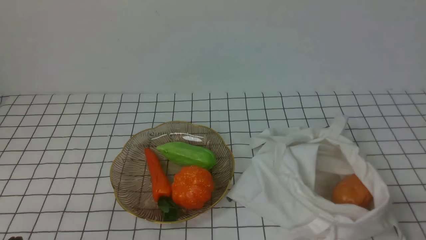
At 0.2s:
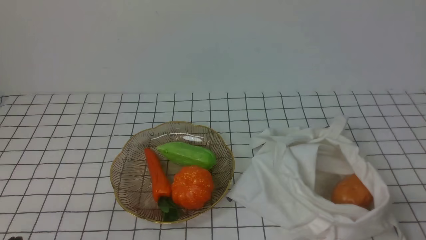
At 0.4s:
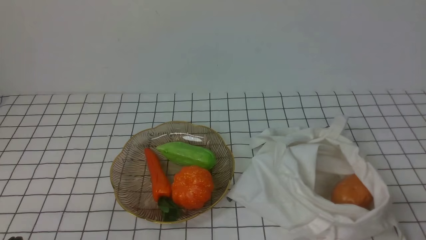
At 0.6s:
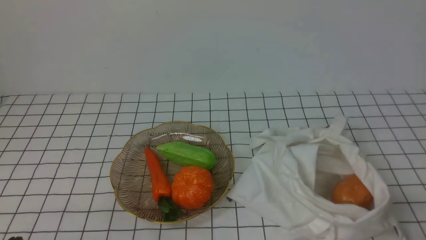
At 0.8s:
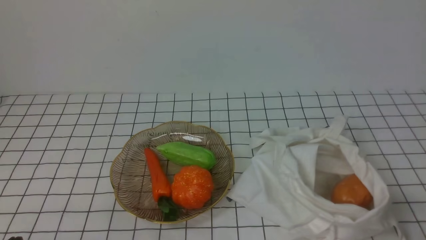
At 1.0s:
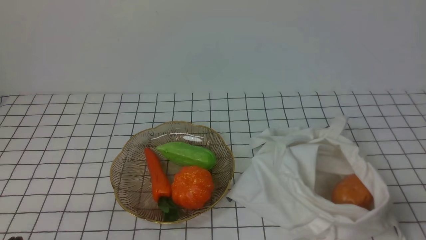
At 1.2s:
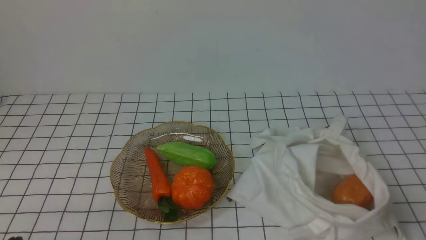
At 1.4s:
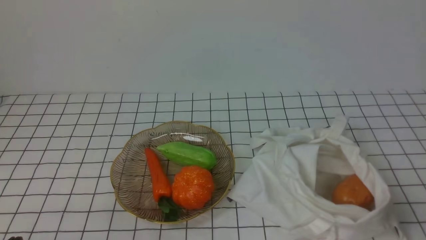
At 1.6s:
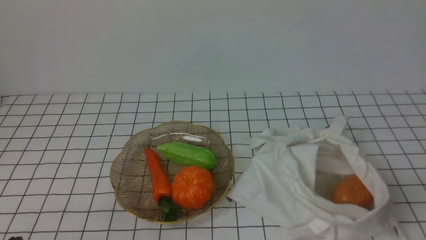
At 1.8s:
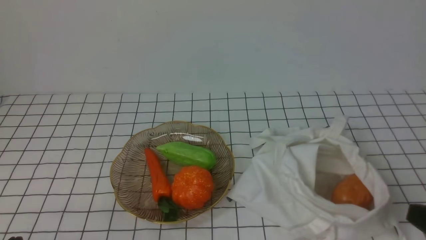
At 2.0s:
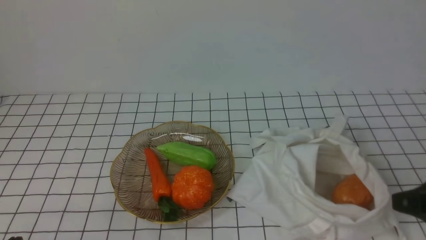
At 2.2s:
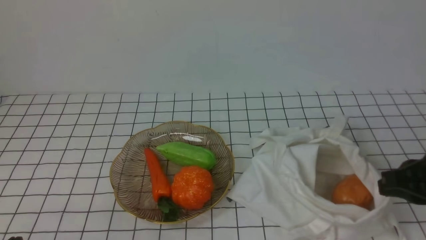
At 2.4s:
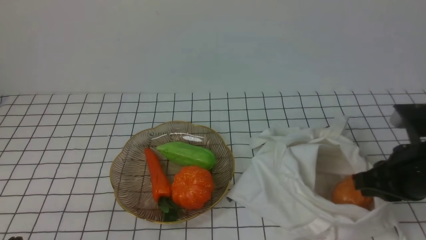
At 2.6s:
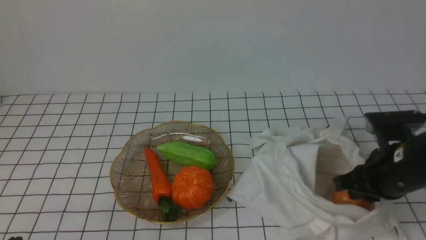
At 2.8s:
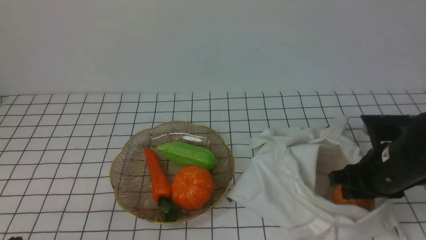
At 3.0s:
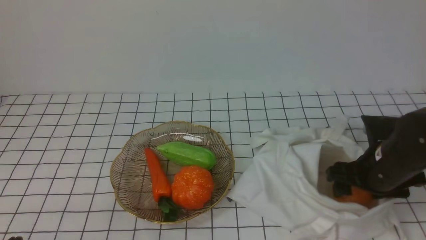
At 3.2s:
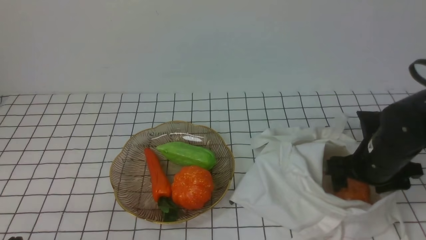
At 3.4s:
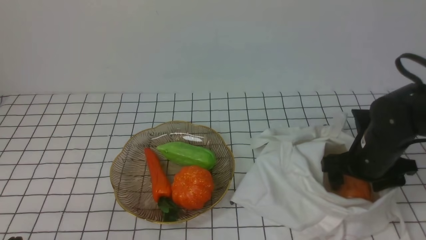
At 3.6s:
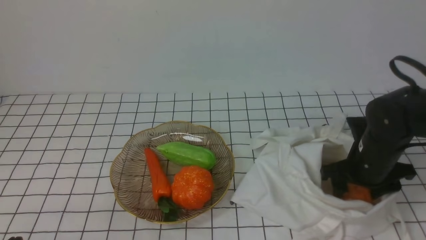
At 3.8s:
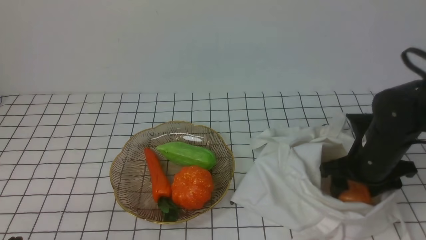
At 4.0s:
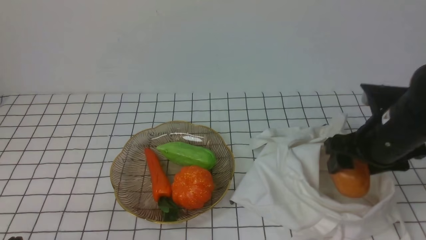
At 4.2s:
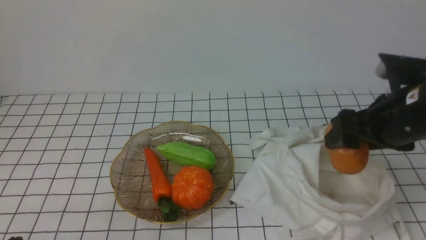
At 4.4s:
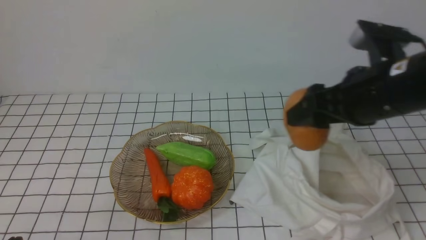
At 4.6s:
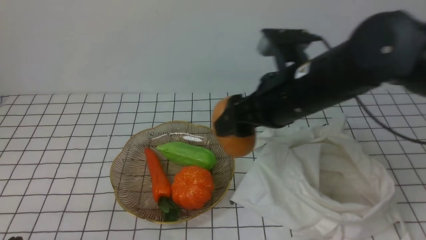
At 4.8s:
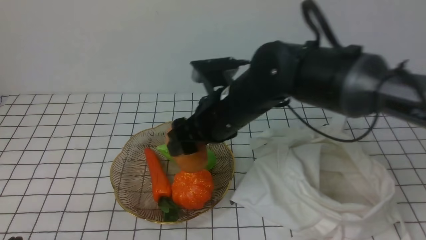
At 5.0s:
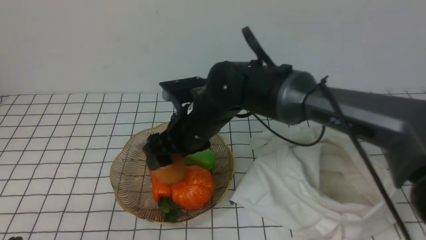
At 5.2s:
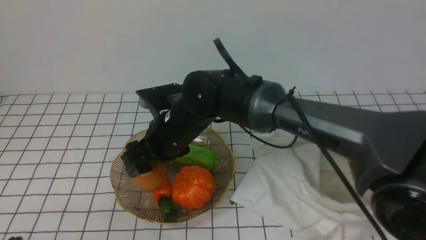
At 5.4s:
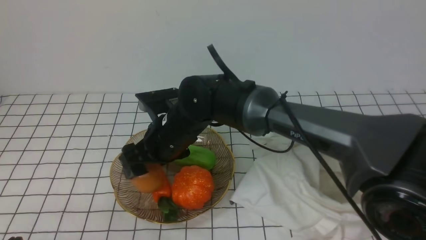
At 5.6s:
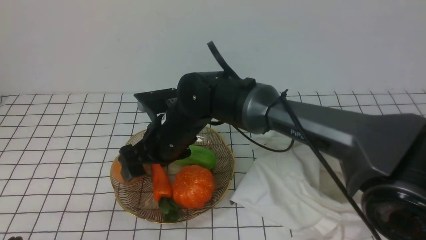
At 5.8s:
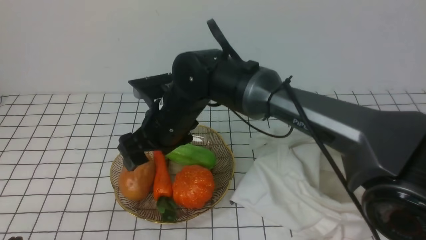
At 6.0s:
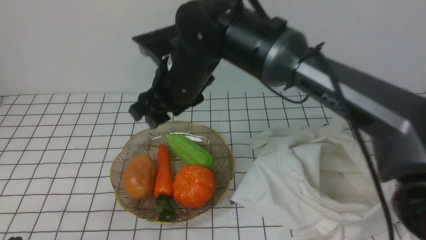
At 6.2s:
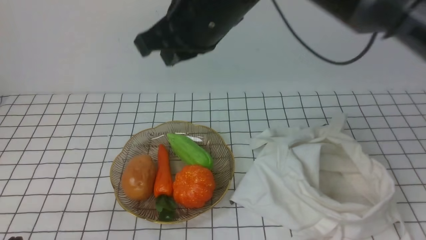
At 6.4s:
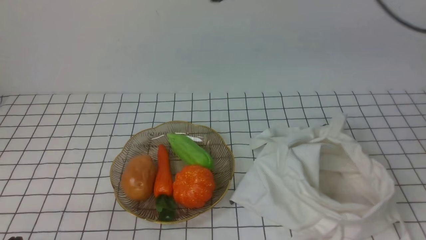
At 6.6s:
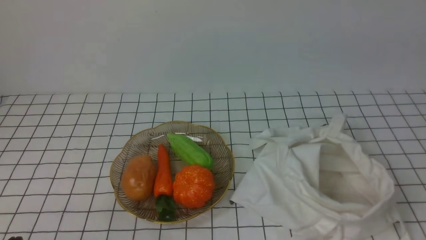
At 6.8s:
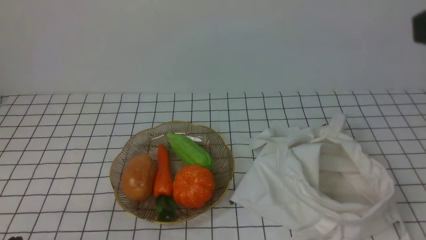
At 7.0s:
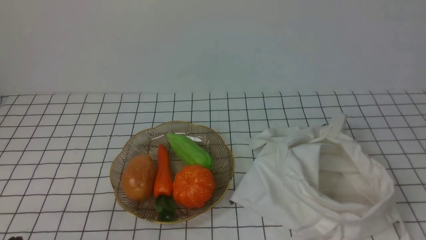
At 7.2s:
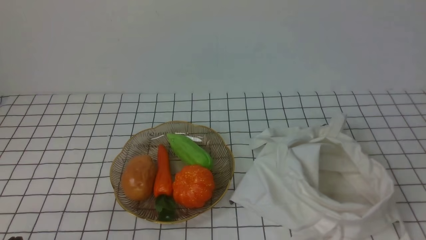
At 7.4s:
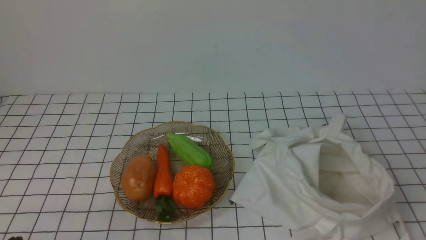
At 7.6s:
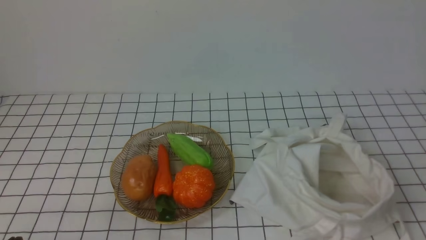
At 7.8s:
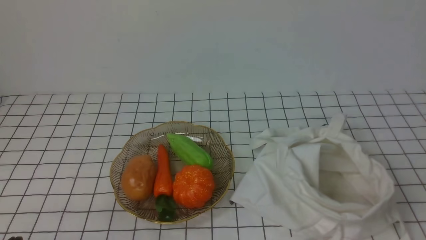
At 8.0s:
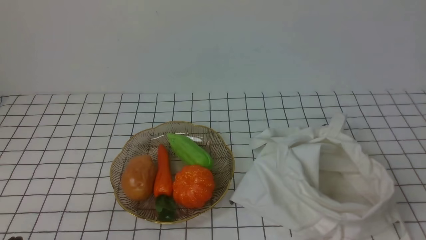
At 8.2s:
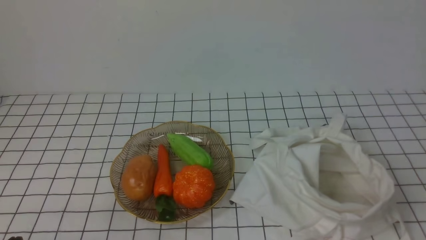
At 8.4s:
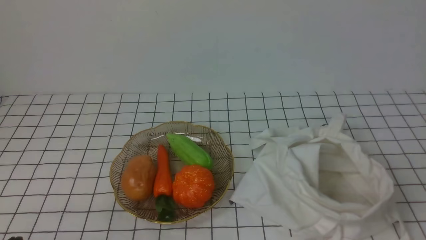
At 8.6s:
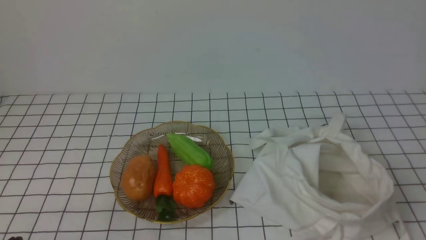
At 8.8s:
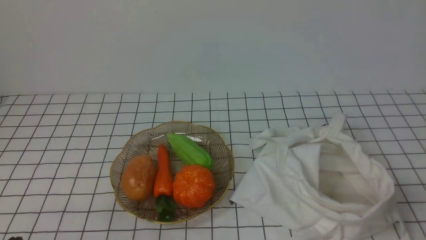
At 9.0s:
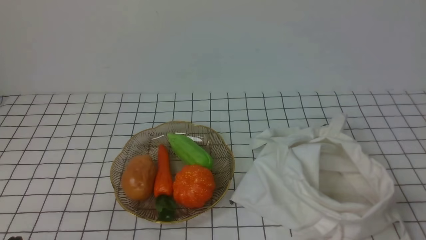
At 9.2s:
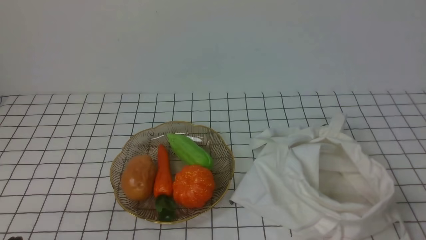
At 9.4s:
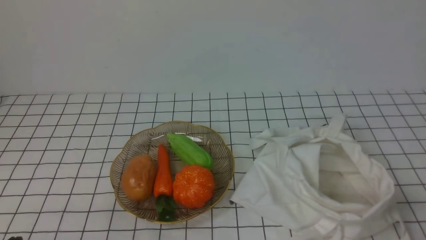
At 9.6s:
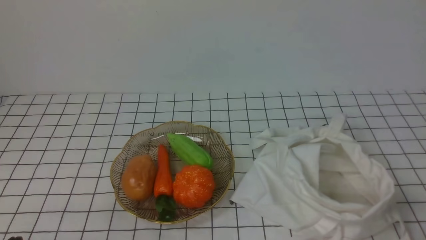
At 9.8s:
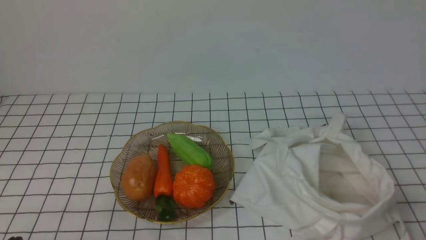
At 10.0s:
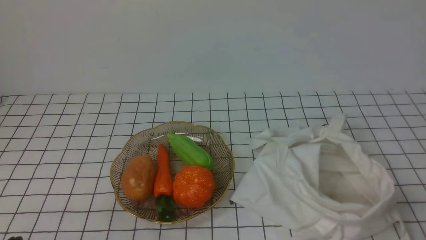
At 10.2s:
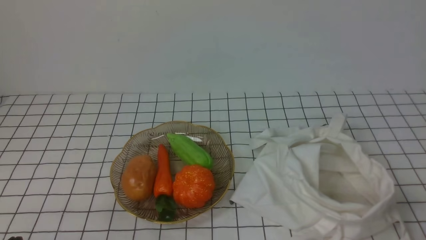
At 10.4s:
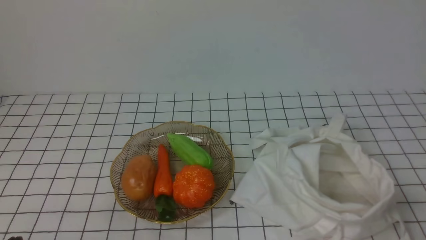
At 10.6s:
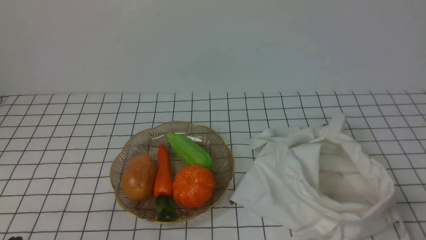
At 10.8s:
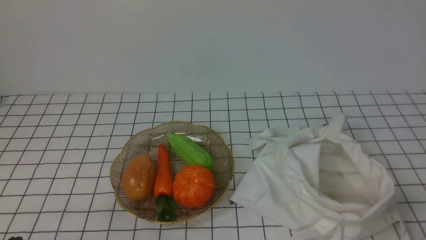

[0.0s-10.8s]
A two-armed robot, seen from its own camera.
Task of the whole recording: take vegetables from bag on white checkered tablecloth place on plate.
Step, 0.0s to 3.6s: Grasp the potato with right gripper.
Step, 3.8s to 5.8s: Place the potato on the plate with right gripper.
1.6s to 3.0s: The right gripper is displaced forward by roughly 20 cm, and opens its fingers.
3.0s to 4.6s: The right gripper is displaced to the left and upward by approximately 20 cm.
4.6s to 6.2s: The right gripper goes some 15 cm upward and to the left, and closes its fingers.
6.2s to 7.8s: The right gripper travels backward, to the right and downward by some 40 cm.
9.2s to 10.8s: Both grippers stay put.

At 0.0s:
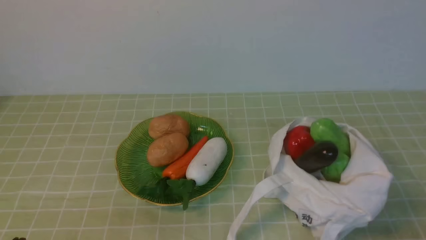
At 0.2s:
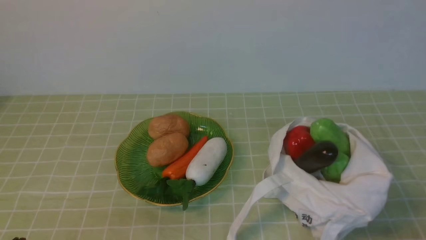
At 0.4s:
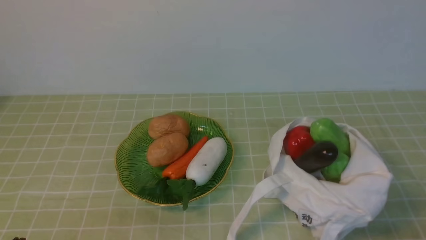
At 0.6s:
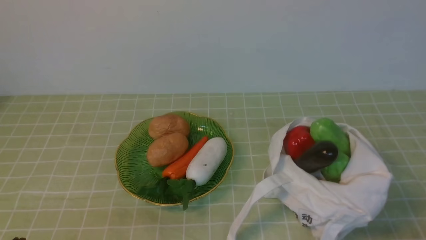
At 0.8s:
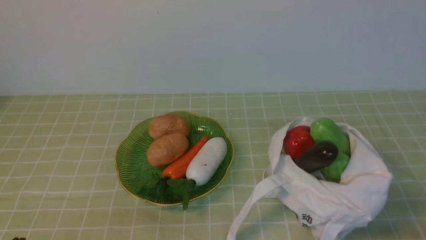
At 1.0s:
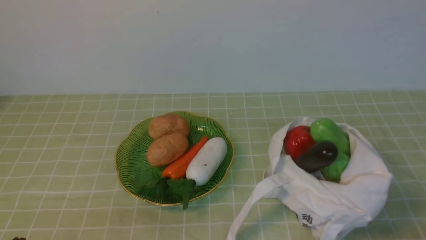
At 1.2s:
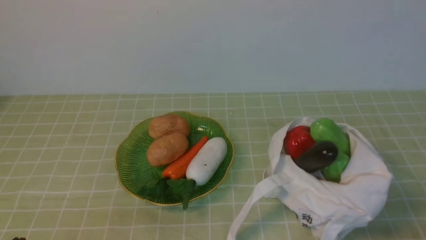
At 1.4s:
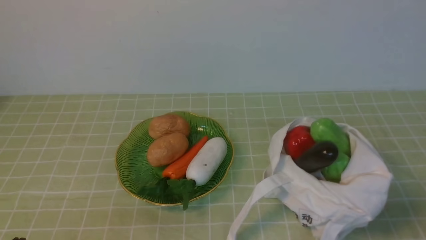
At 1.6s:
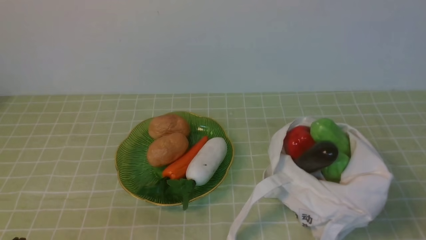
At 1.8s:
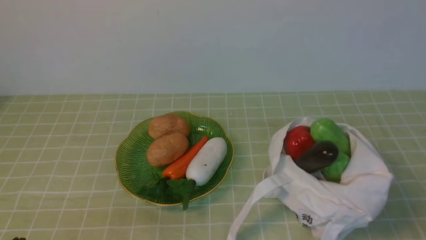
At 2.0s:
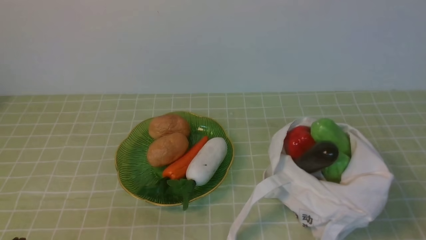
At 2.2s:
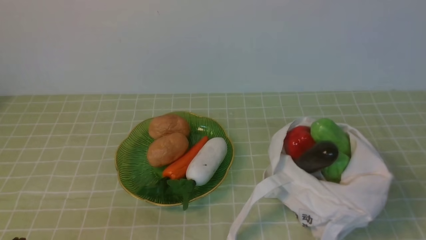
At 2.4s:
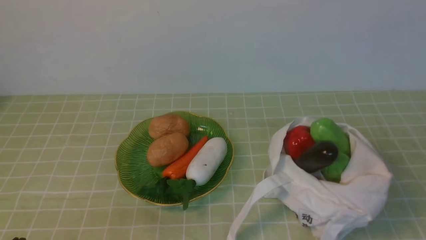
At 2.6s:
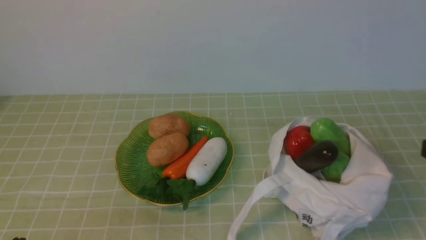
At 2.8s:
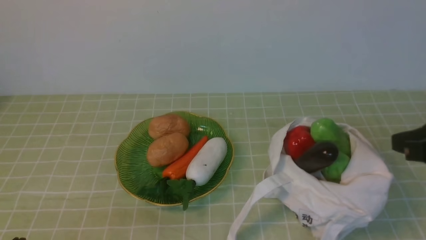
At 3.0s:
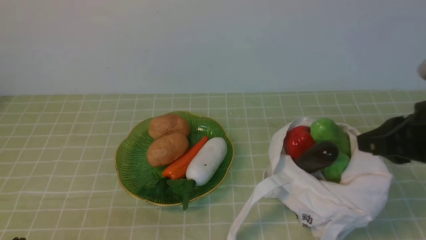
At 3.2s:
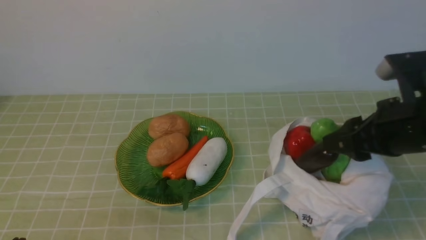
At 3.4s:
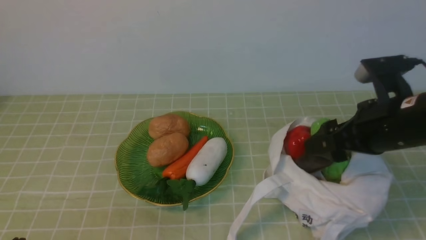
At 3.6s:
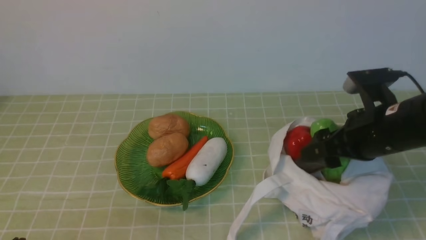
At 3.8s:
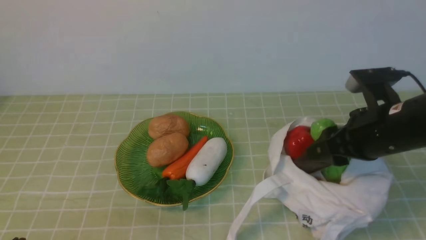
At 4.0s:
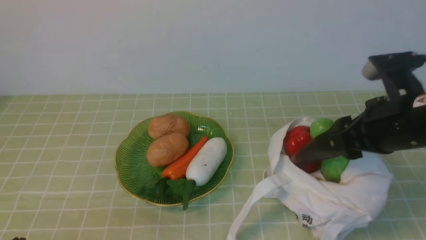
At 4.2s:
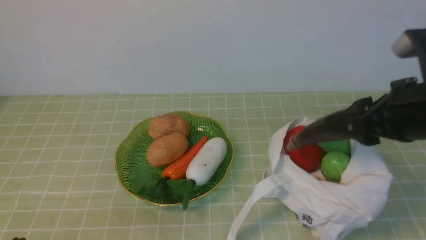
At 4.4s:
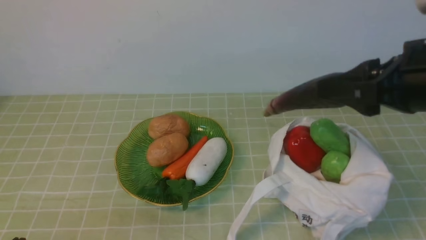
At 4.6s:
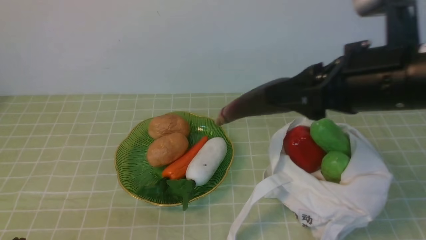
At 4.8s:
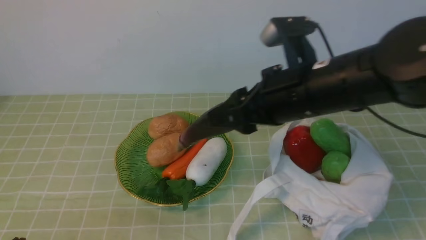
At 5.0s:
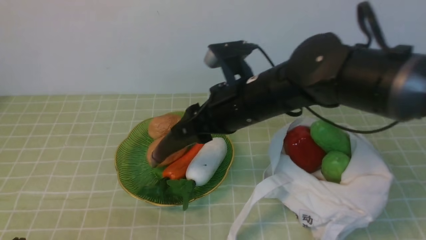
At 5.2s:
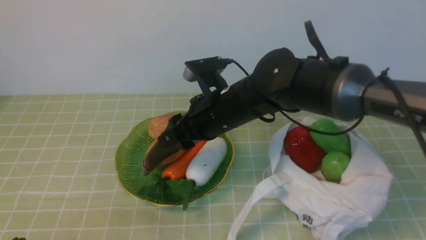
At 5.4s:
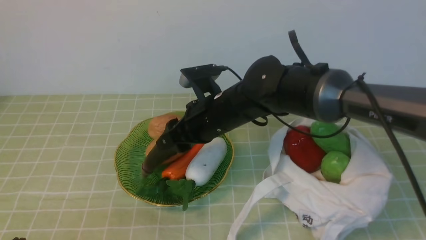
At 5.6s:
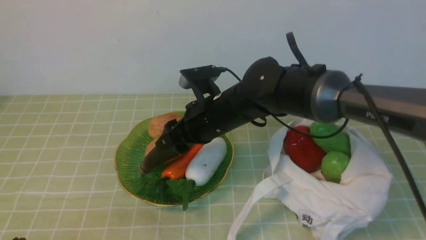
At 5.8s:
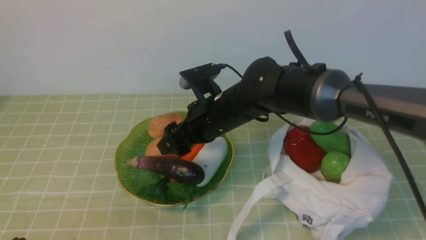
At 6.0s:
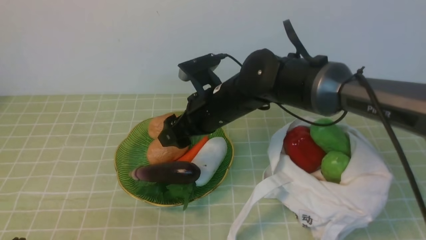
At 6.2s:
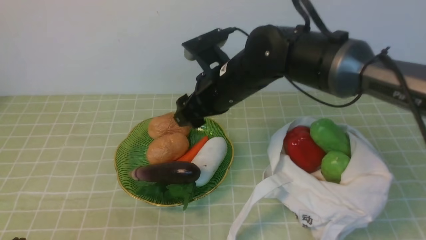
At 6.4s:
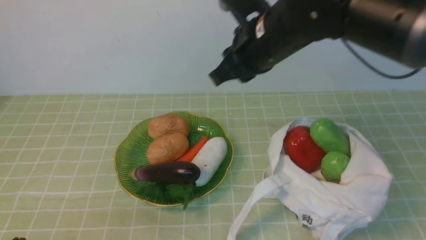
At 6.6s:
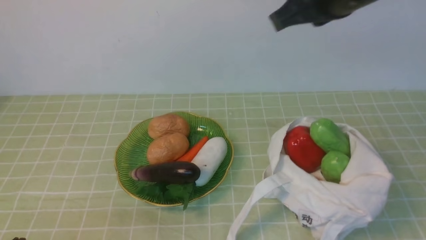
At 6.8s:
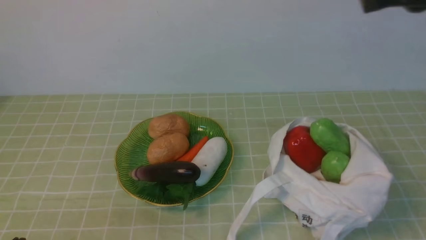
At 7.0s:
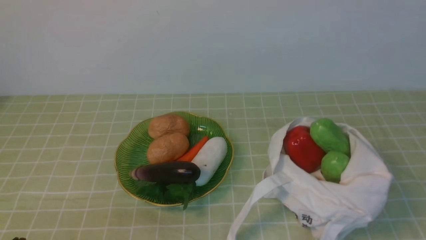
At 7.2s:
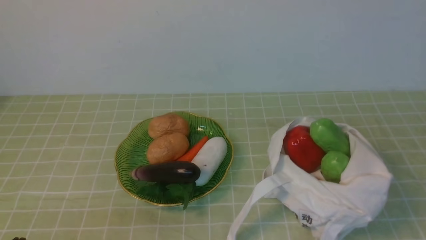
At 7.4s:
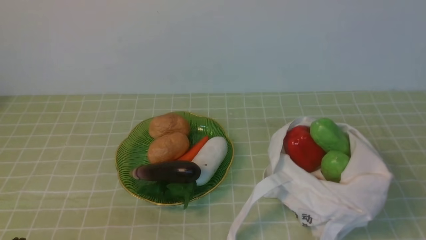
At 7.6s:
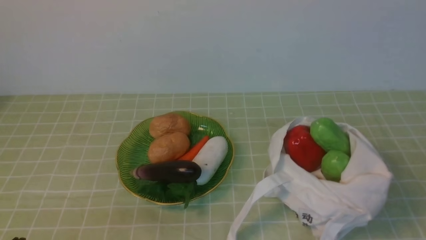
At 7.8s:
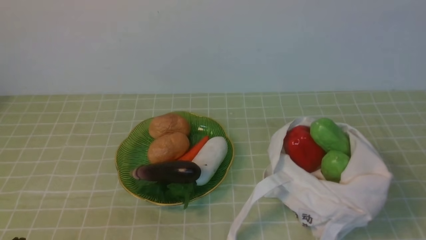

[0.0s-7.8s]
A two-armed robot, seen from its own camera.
Task of the whole recording: take vegetables from bag on green coffee tablecloth place on plate.
Step, 0.0s to 3.6s: Grasp the eggplant with right gripper.
Step, 3.8s to 5.8s: Place the eggplant on the plate with right gripper.
1.6s to 3.2s: The right gripper travels forward, upward and to the left by approximately 20 cm, and opens.
3.2s to 4.6s: The right gripper travels to the left and upward by some 10 cm.
4.6s to 6.2s: The right gripper moves to the left, forward and downward, about 15 cm.
6.2s to 7.8s: The right gripper heads backward and to the right, covering roughly 40 cm, and closes.
